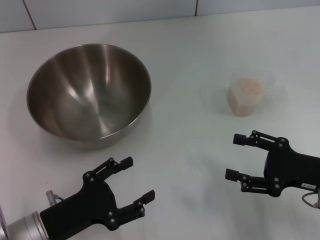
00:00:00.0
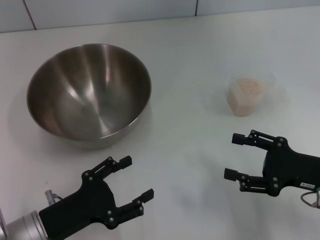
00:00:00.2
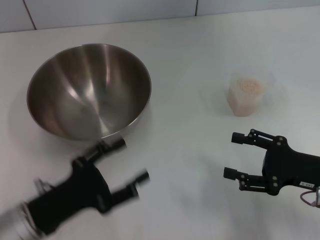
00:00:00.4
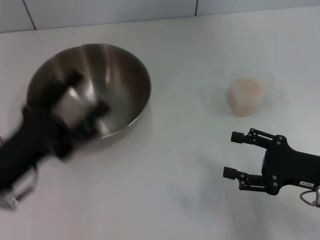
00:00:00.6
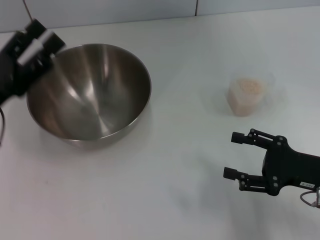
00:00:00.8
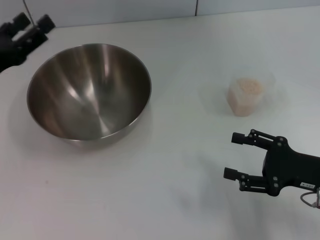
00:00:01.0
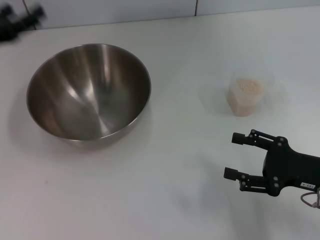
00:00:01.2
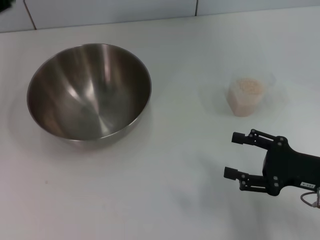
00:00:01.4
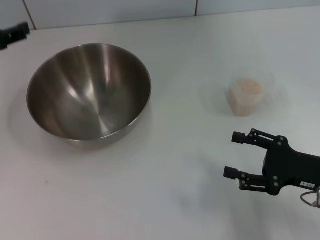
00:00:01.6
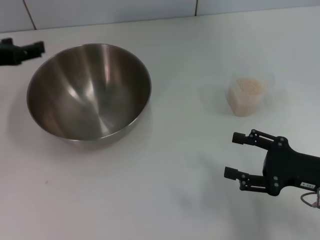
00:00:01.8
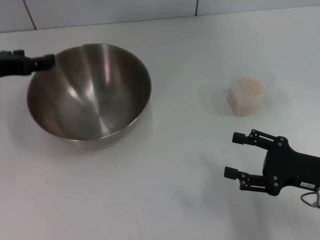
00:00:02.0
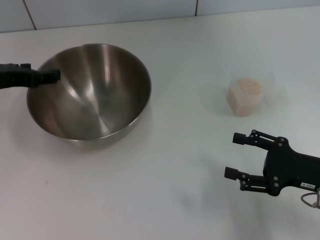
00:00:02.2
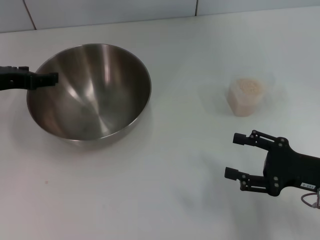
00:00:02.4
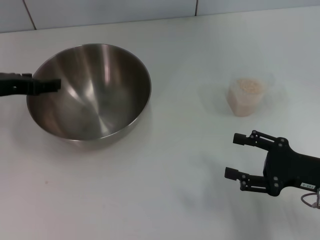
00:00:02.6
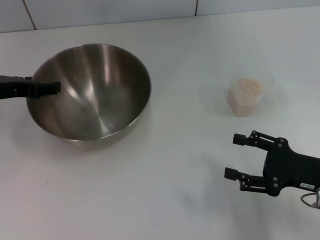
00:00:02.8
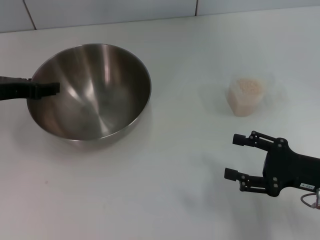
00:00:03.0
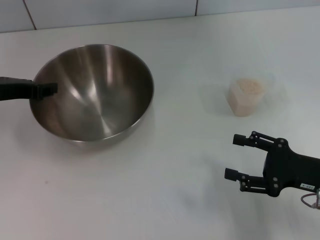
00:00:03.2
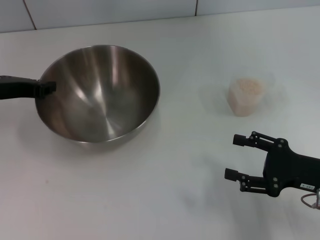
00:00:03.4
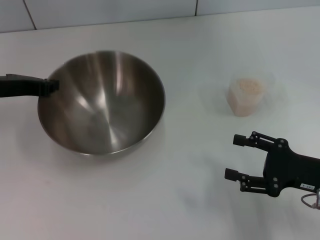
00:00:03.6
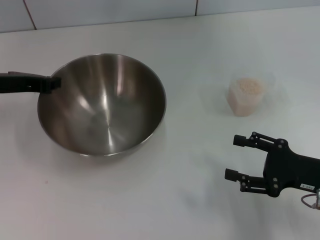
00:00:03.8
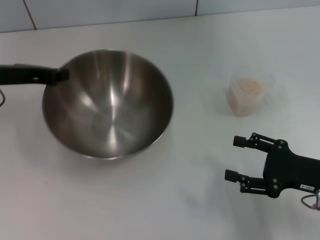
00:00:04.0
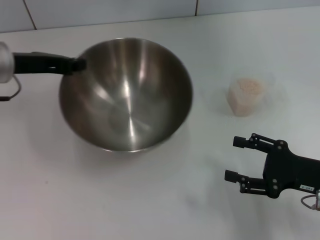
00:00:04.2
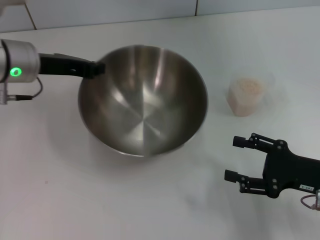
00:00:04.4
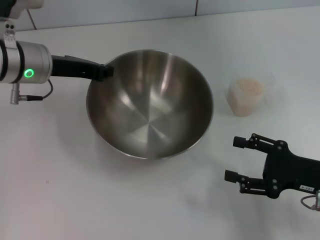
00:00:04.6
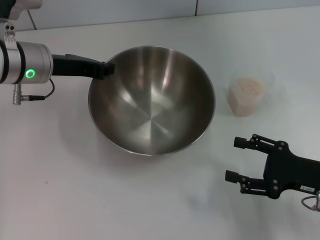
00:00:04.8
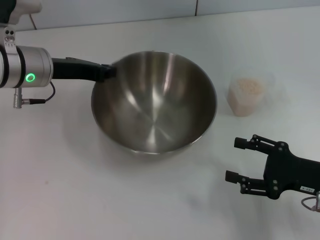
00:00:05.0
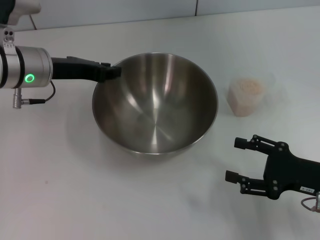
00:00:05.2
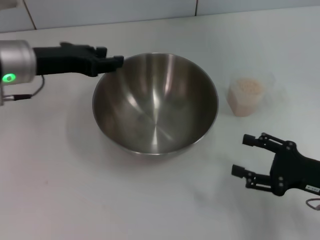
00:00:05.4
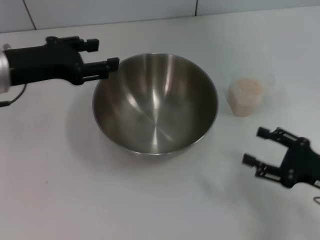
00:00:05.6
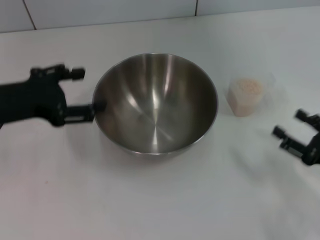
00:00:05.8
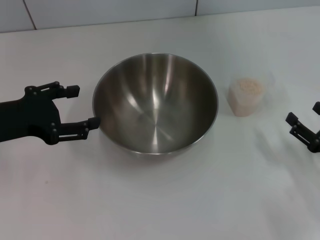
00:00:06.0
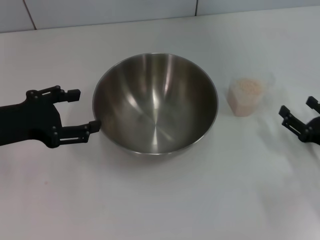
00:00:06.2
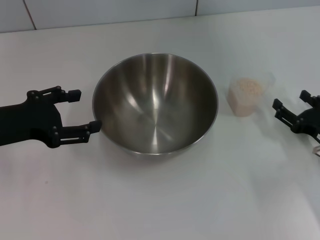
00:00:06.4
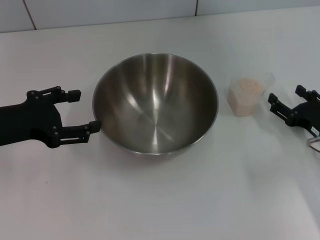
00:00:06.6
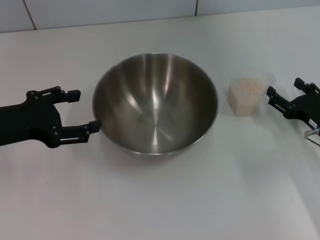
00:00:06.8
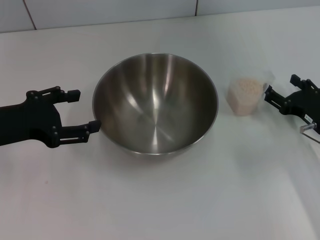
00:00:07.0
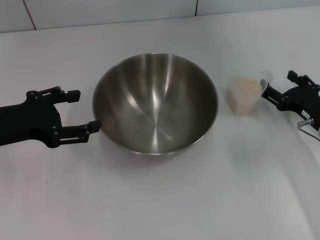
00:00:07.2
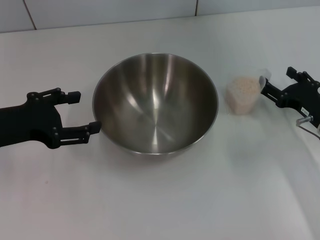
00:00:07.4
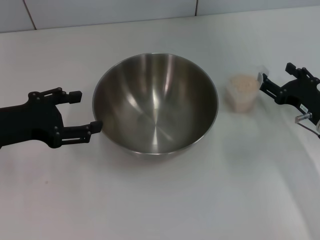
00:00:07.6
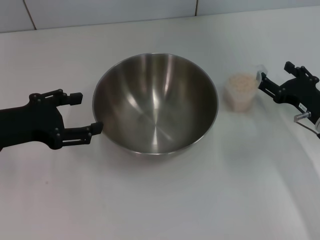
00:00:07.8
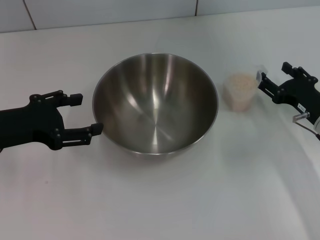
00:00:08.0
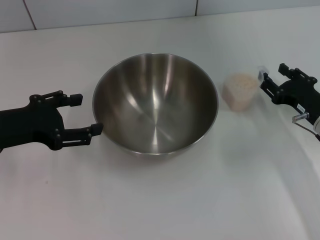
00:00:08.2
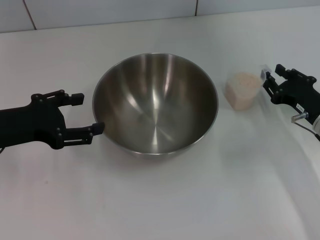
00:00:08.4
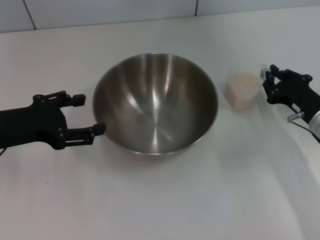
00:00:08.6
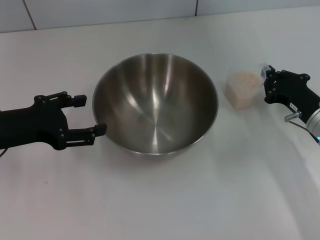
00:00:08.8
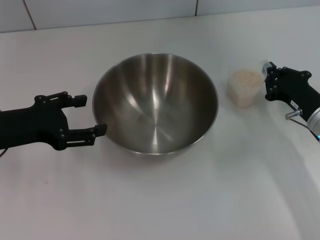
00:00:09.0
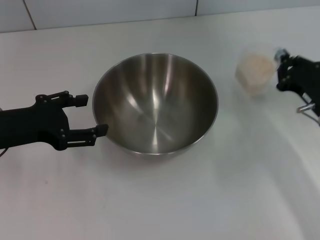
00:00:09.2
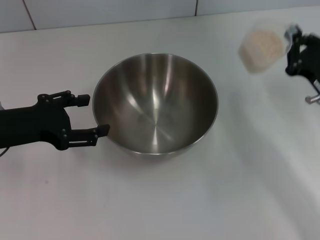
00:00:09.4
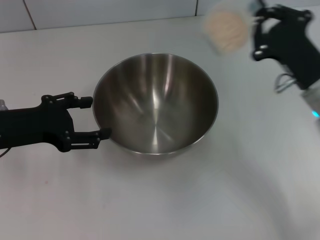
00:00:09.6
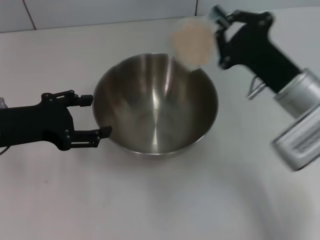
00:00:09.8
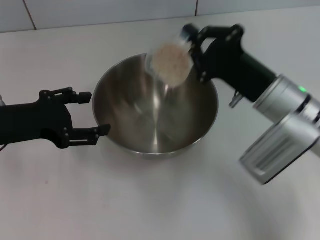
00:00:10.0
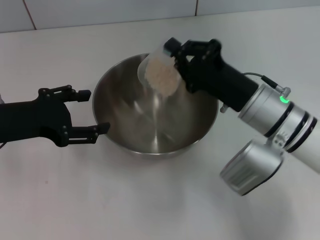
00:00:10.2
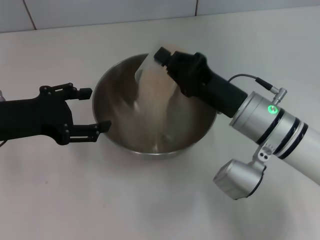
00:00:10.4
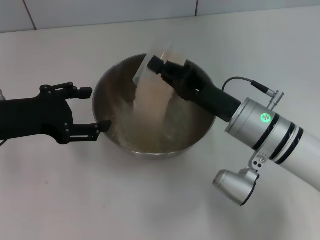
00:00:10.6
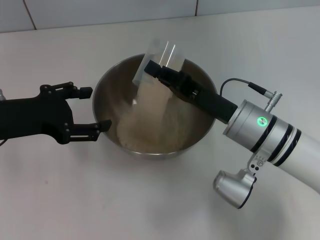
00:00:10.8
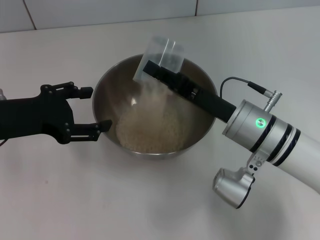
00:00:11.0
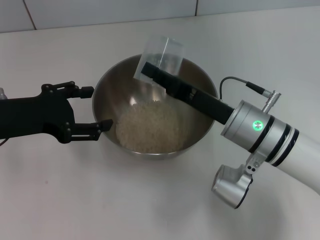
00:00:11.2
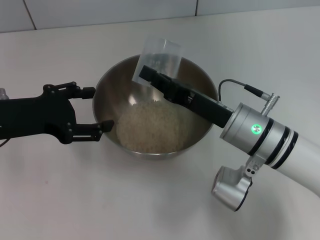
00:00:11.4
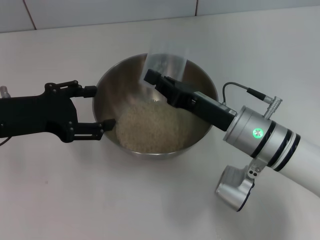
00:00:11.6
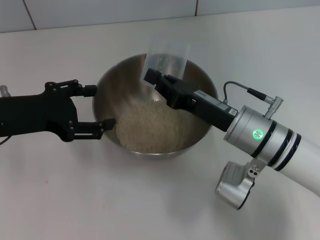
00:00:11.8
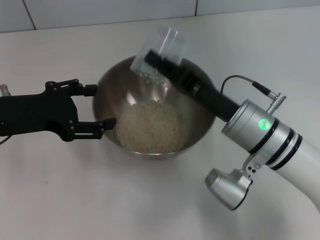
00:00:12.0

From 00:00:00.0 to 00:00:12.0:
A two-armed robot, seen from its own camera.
Task of the whole recording: Place the bowl in the middle of the table with one hand and pour the rice from the grain cup into it with the other hand.
Step, from 00:00:00.0 to 00:00:03.8: Pick up the bowl with the left gripper.
Step, from 00:00:04.0 to 00:00:06.6: Place the bowl in the center of view with the left gripper.
Step, from 00:00:06.8 to 00:00:09.2: Pick up the cup with rice in it with the right gripper.
From 00:00:00.0 to 00:00:01.6: The left gripper shifts about 25 cm upward, forward and to the left.
From 00:00:01.6 to 00:00:03.0: The left gripper moves approximately 5 cm.
From 00:00:03.0 to 00:00:04.4: The left gripper moves to the right, some 5 cm, and closes.
From 00:00:04.4 to 00:00:06.0: The right gripper moves some 5 cm, while the left gripper moves backward and to the left, approximately 15 cm, and opens up.
From 00:00:06.0 to 00:00:07.6: The right gripper is displaced forward by roughly 10 cm.
From 00:00:07.6 to 00:00:09.0: The right gripper closes up.
From 00:00:09.0 to 00:00:10.4: The right gripper heads to the left and upward, covering roughly 15 cm.

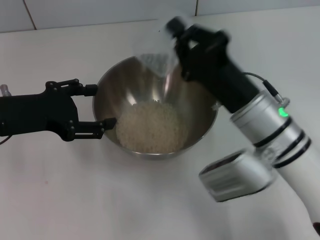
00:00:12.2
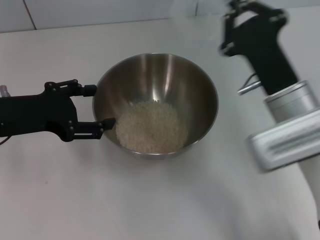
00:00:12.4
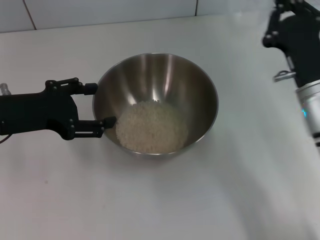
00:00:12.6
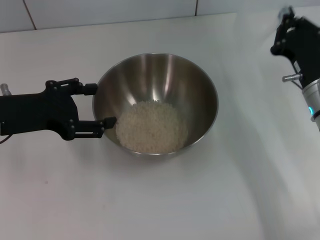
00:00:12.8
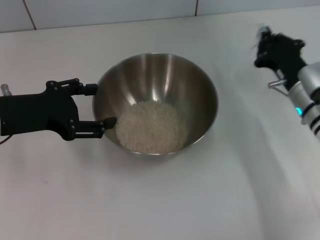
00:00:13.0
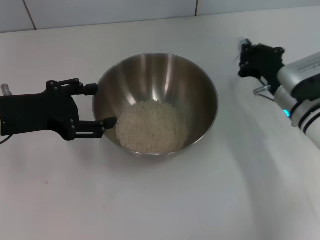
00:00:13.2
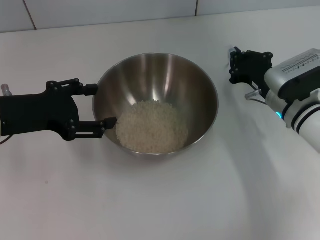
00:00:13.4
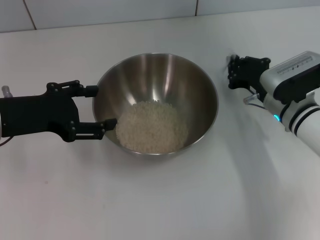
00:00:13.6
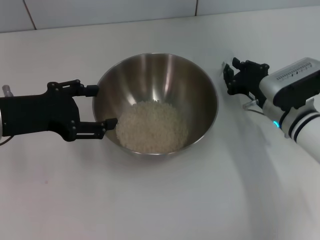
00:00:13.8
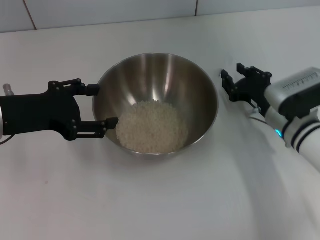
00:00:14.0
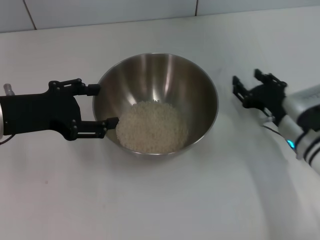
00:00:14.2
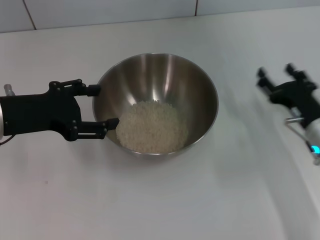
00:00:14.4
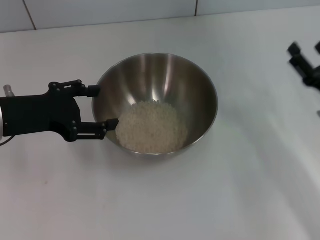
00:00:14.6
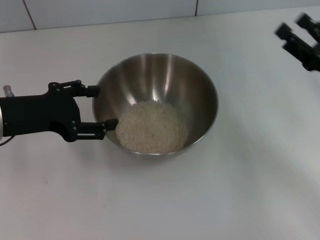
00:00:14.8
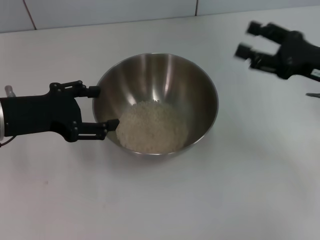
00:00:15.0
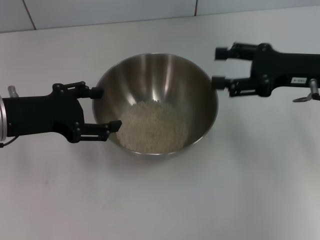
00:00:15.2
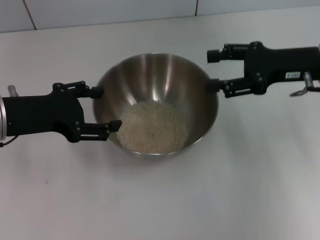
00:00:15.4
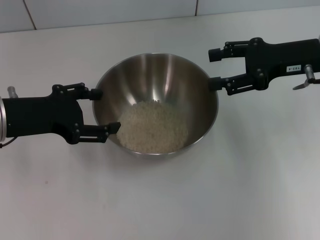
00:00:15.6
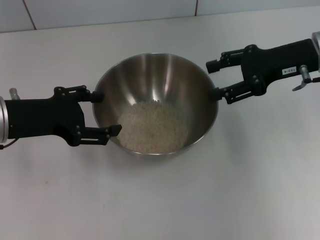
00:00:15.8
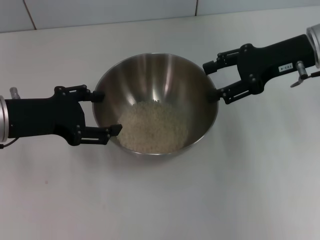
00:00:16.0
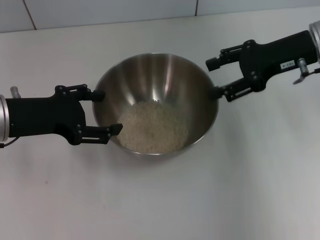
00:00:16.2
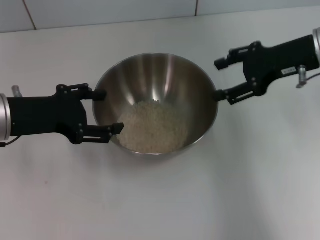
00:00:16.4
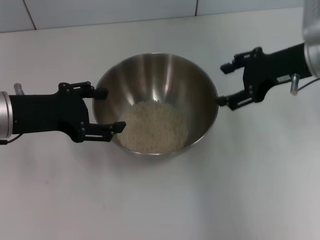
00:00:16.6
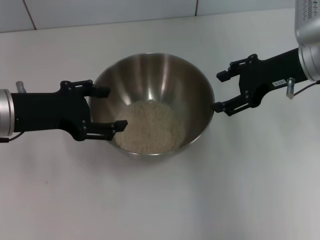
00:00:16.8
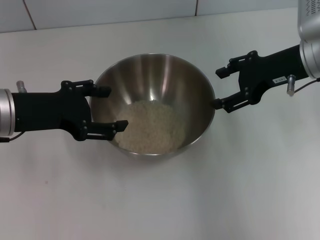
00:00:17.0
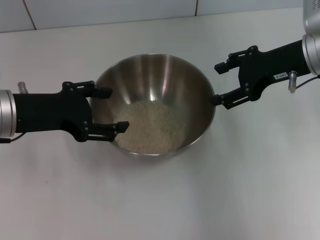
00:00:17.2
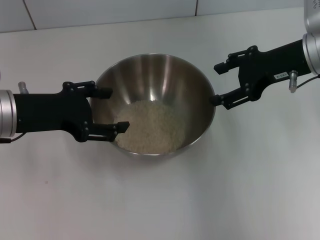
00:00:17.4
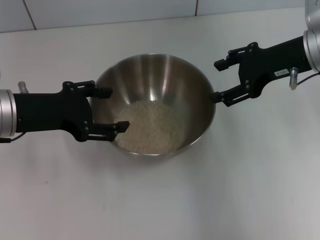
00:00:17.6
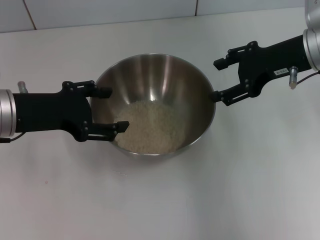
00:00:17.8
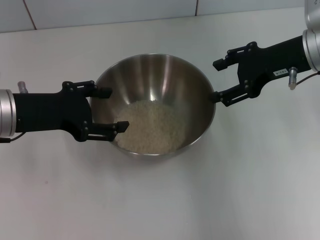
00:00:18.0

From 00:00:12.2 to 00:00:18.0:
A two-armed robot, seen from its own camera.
Task of the whole recording: Place the bowl in the middle of the table with one hand and pour the rice from the grain cup into it with the other hand.
Step, from 00:00:12.8 to 00:00:15.8: Place the cup on the table with the right gripper.
From 00:00:12.2 to 00:00:13.6: The right gripper heads to the right, forward and downward, covering roughly 15 cm.
From 00:00:13.6 to 00:00:15.0: The right gripper is displaced upward and to the right by roughly 10 cm, and opens up.
From 00:00:15.0 to 00:00:16.6: The right gripper moves to the left and upward, about 10 cm.
From 00:00:16.6 to 00:00:18.0: The grippers stay close to where they were, moving slightly.
